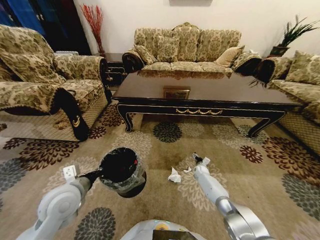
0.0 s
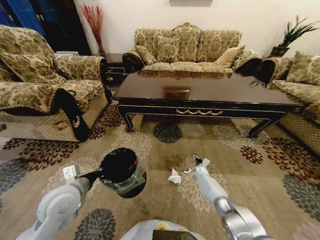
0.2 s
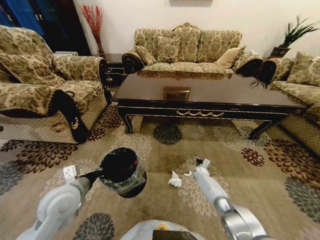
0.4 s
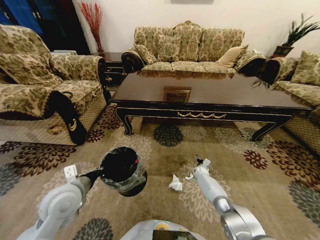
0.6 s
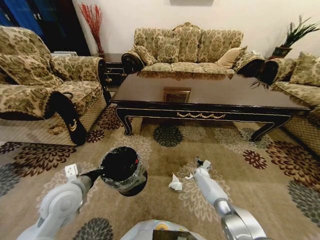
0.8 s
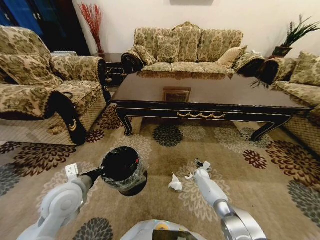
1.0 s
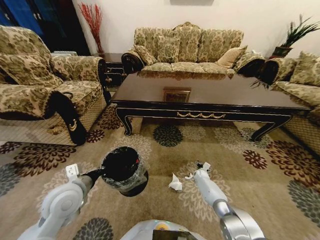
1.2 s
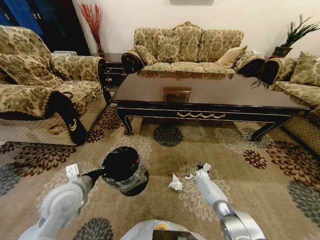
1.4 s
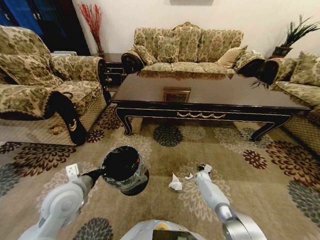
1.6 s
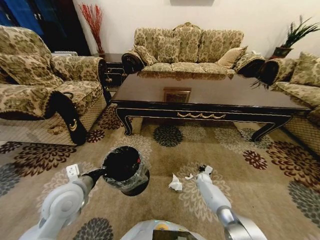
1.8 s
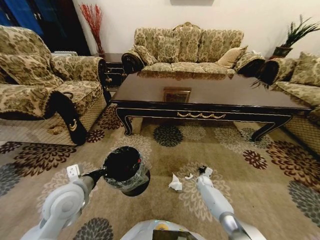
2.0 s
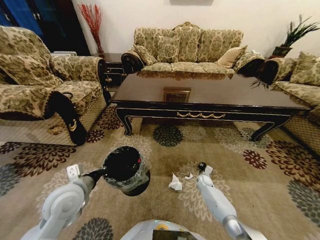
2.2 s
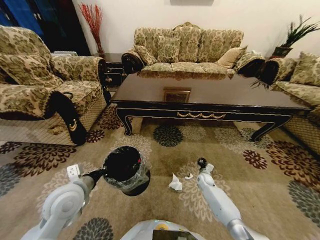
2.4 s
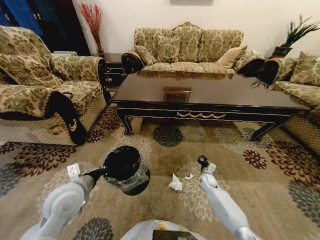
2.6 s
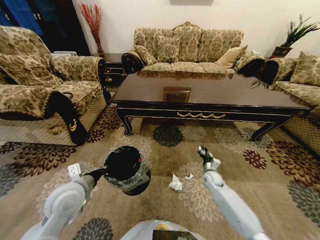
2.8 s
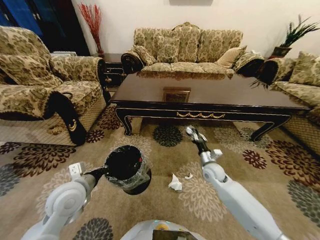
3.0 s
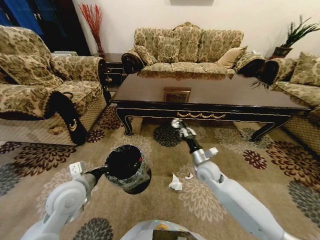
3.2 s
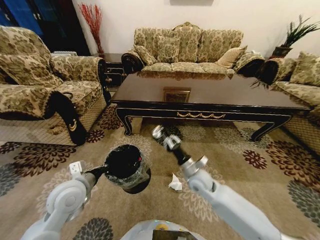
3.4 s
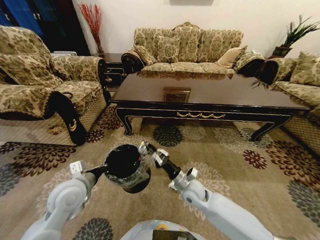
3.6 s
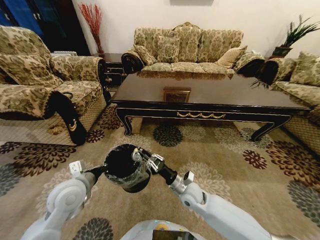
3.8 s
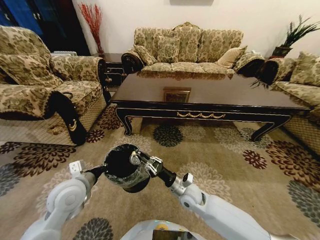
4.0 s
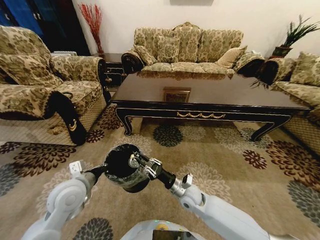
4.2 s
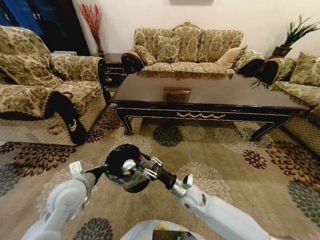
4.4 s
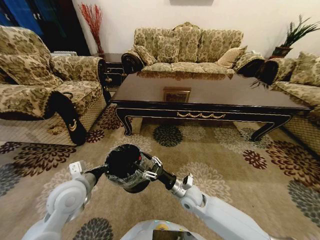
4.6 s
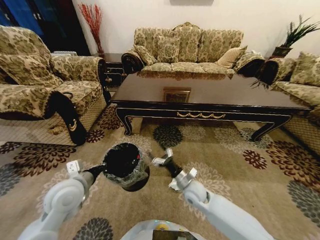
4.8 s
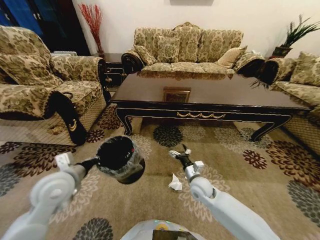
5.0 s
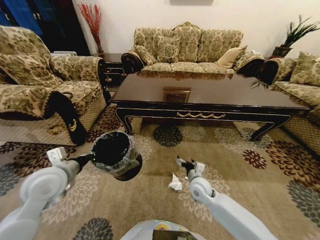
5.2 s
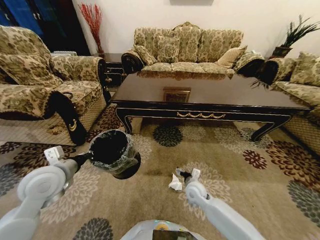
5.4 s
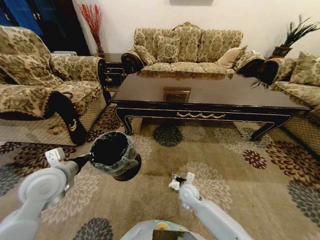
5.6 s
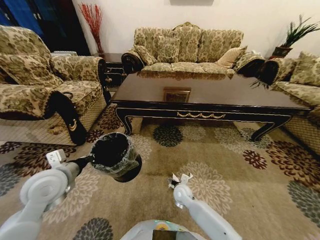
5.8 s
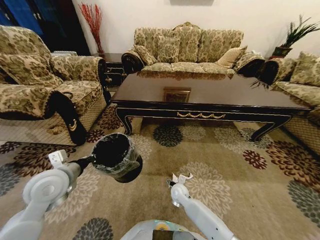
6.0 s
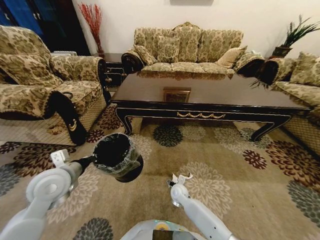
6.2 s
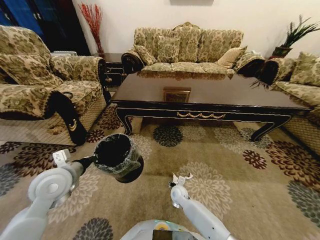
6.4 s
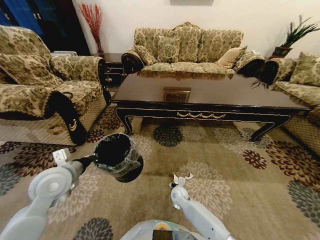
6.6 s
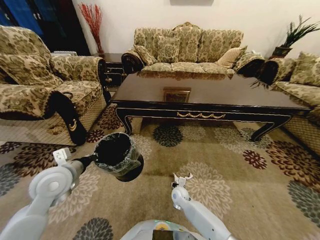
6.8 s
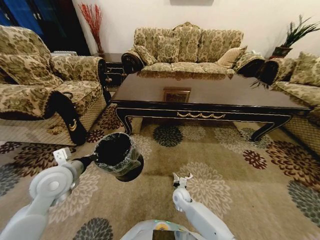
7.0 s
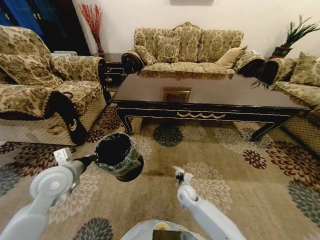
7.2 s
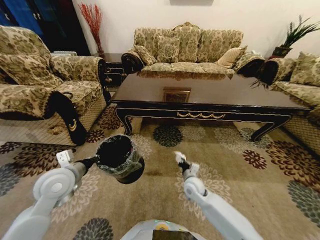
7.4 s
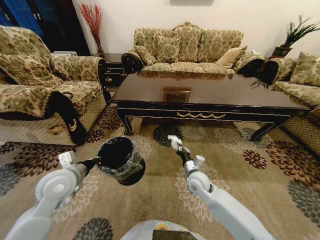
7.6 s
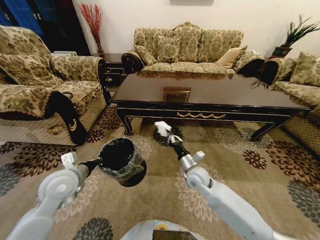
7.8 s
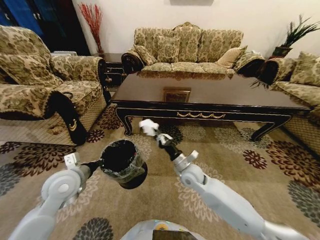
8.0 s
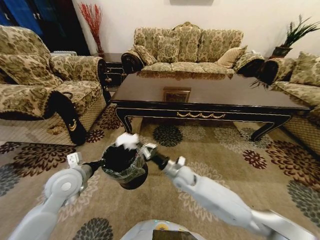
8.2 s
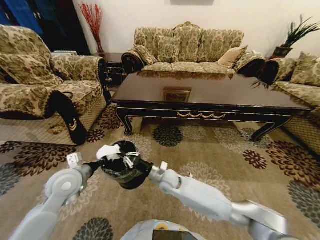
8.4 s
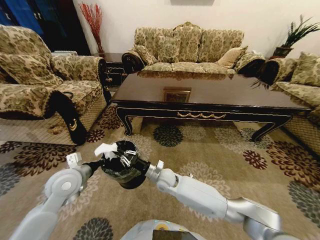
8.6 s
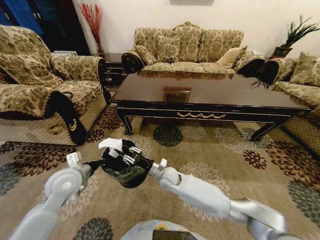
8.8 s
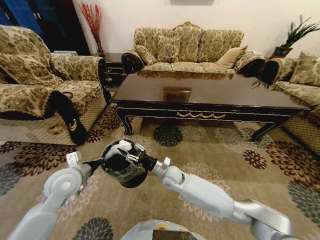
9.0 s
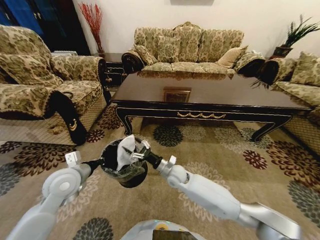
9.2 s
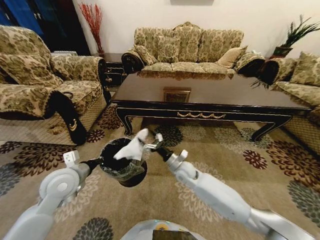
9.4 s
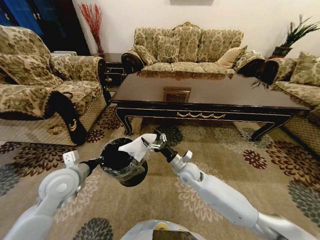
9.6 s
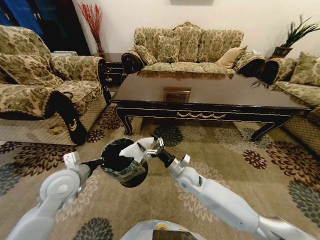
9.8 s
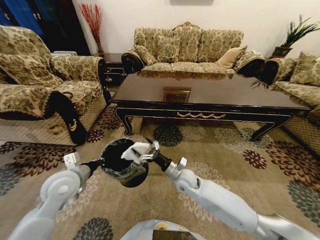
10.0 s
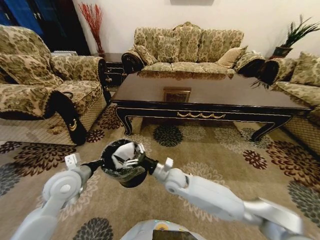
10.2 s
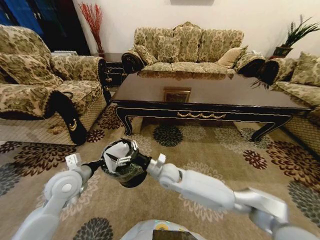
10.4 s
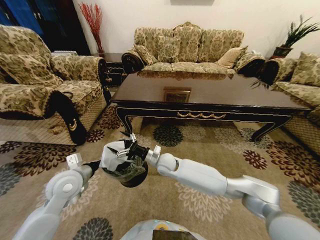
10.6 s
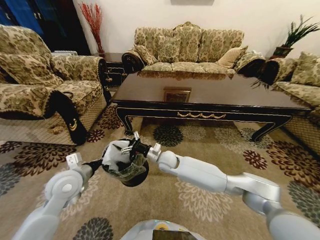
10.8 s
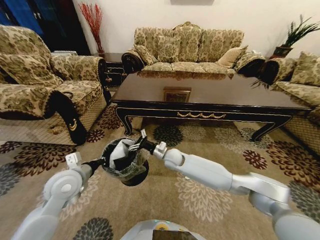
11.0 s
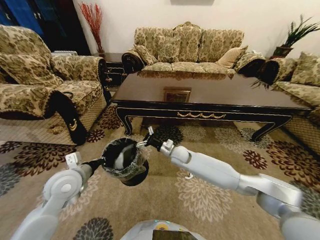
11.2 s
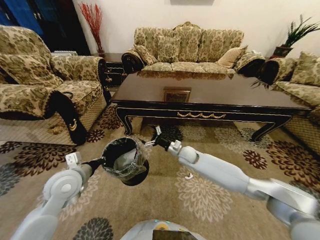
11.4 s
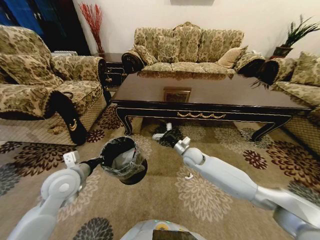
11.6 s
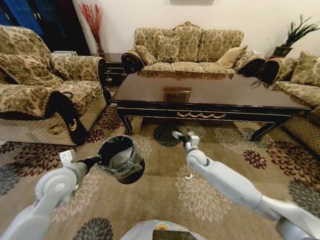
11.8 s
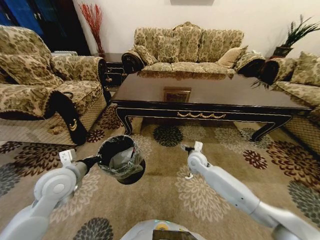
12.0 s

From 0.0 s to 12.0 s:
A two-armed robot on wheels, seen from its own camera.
Task of the whole recording: Move to the front of the table and pick up the trash from the floor, then place it into the trash bin.
From 0.0 s to 1.6 s: The right gripper closes.
From 1.6 s to 3.0 s: The right gripper travels upward by some 20 cm.
From 3.0 s to 4.4 s: The right gripper is displaced to the left and backward by about 15 cm.
From 4.4 s to 6.0 s: The right gripper travels downward by about 10 cm, and opens up, while the left gripper shifts by approximately 5 cm.
From 6.0 s to 7.6 s: The right gripper heads upward and to the right, covering approximately 15 cm, and closes up.
From 7.6 s to 9.0 s: The right gripper moves to the left, some 10 cm, and opens its fingers.
From 9.0 s to 10.4 s: The right gripper moves upward, approximately 5 cm, moves some 10 cm to the right and comes back, and opens its fingers.
From 10.4 s to 12.0 s: The right gripper shifts approximately 20 cm to the right and forward.

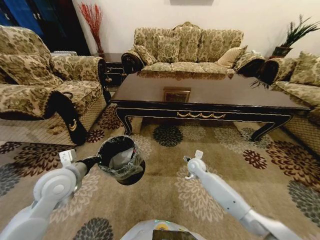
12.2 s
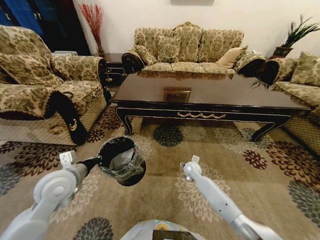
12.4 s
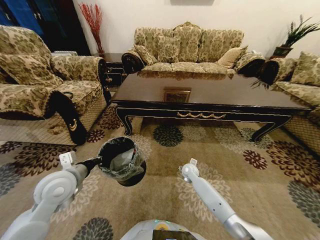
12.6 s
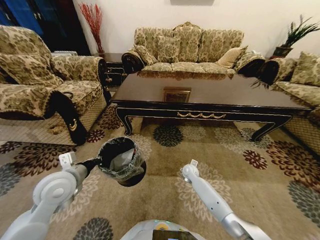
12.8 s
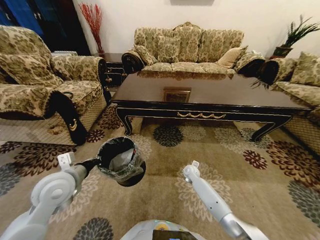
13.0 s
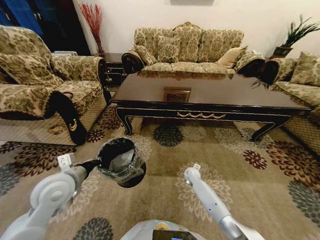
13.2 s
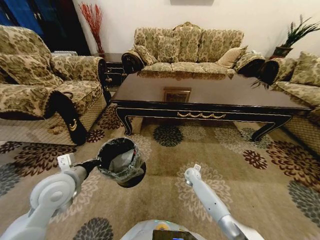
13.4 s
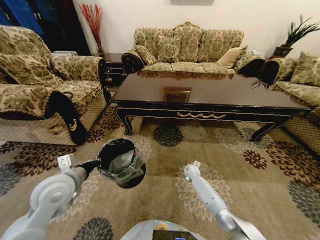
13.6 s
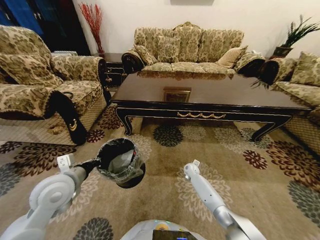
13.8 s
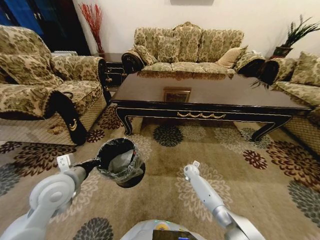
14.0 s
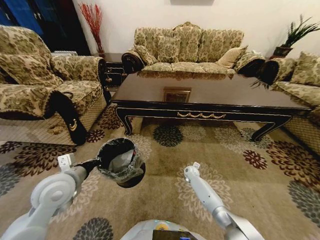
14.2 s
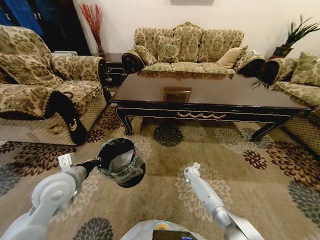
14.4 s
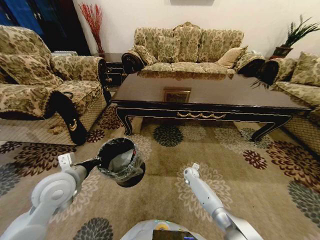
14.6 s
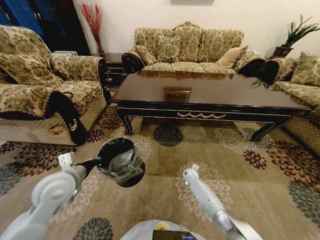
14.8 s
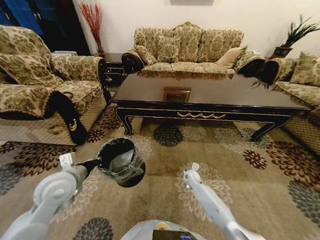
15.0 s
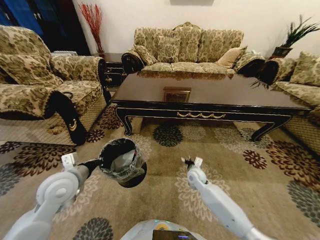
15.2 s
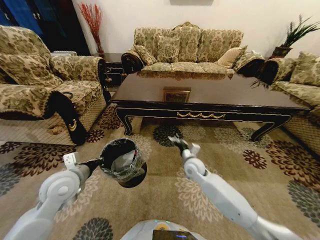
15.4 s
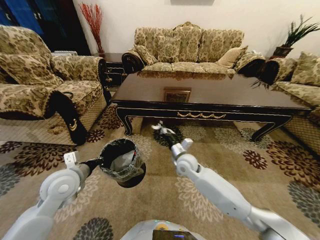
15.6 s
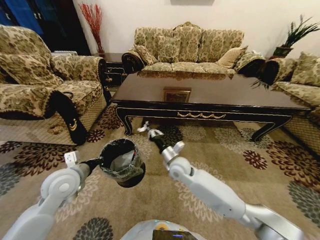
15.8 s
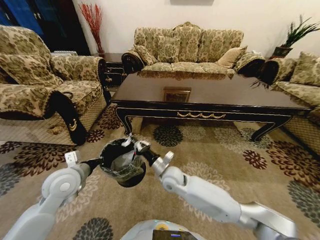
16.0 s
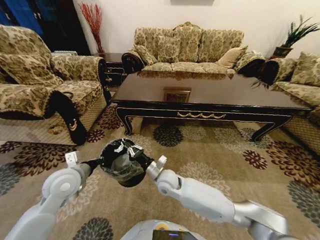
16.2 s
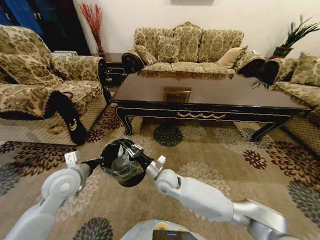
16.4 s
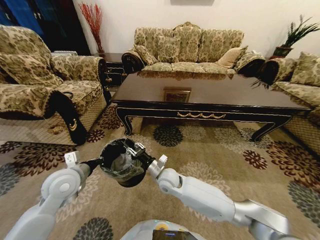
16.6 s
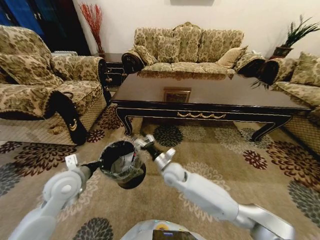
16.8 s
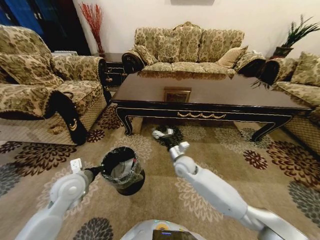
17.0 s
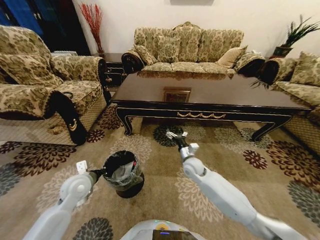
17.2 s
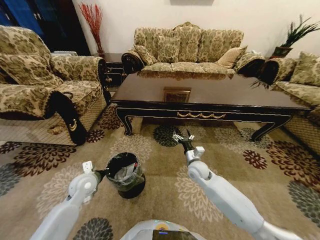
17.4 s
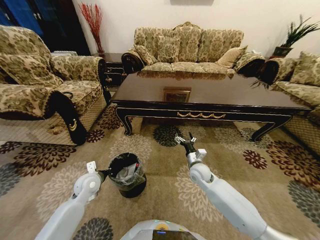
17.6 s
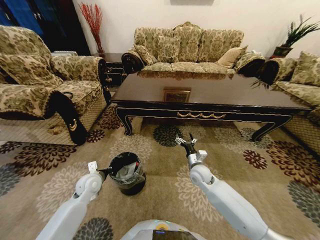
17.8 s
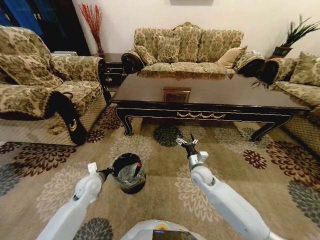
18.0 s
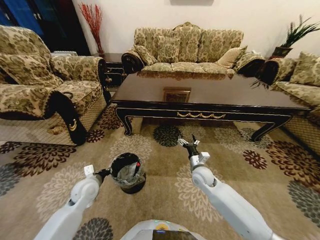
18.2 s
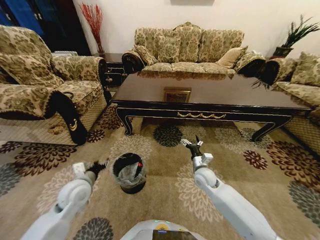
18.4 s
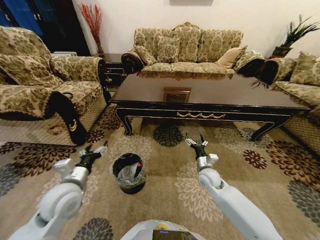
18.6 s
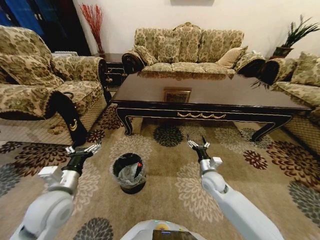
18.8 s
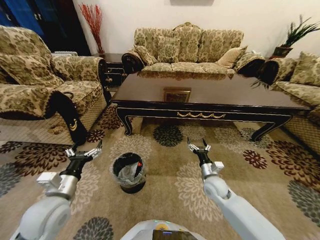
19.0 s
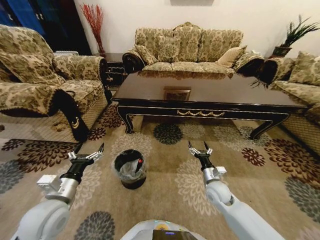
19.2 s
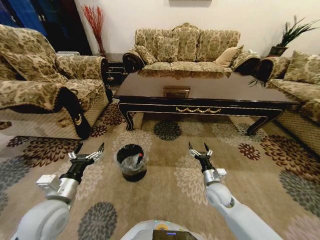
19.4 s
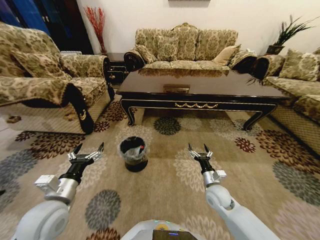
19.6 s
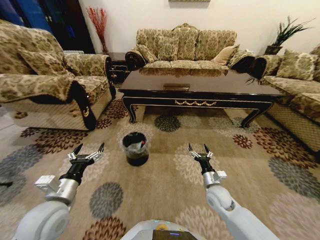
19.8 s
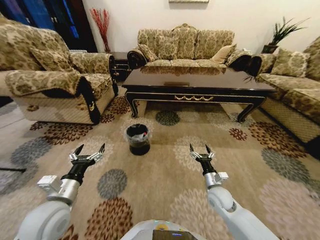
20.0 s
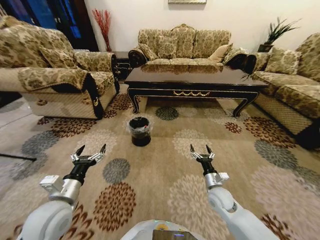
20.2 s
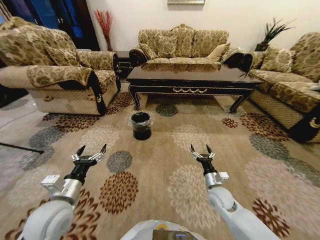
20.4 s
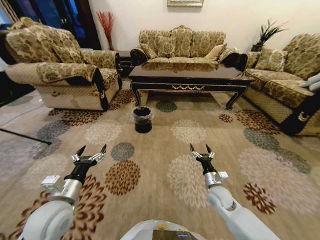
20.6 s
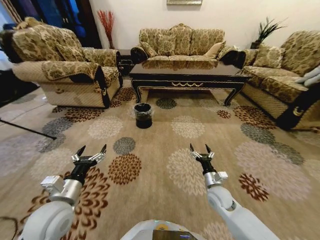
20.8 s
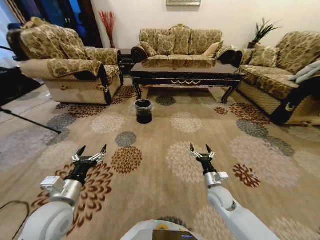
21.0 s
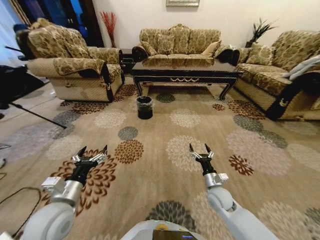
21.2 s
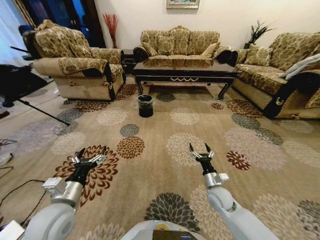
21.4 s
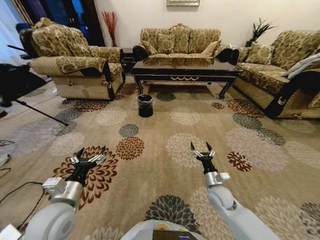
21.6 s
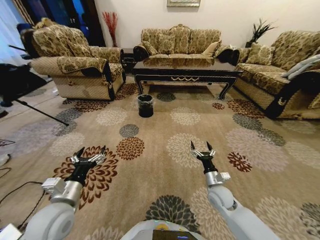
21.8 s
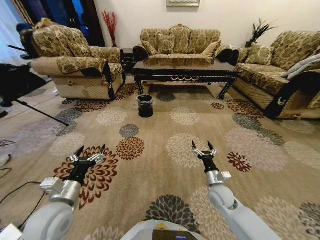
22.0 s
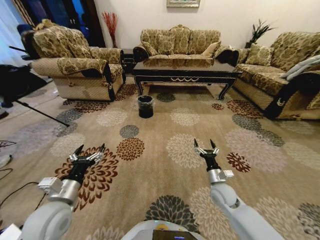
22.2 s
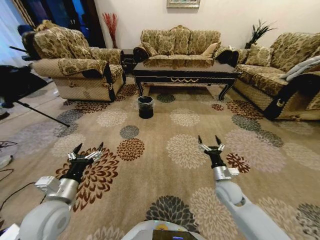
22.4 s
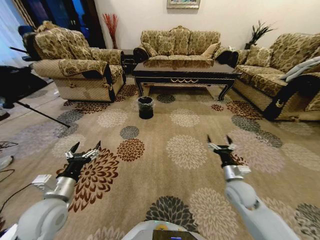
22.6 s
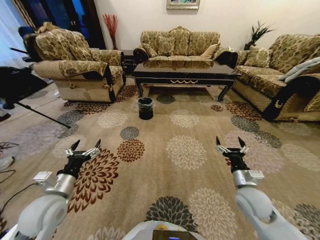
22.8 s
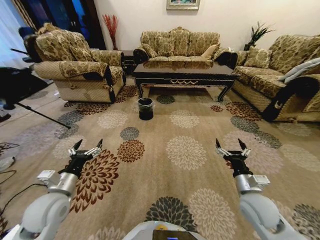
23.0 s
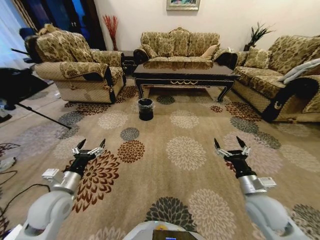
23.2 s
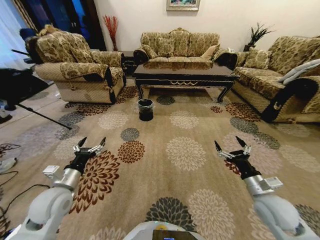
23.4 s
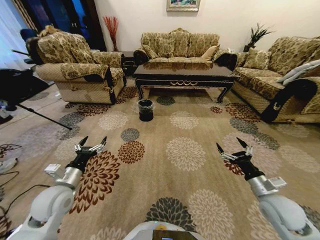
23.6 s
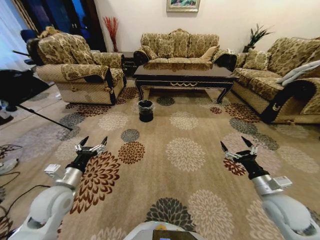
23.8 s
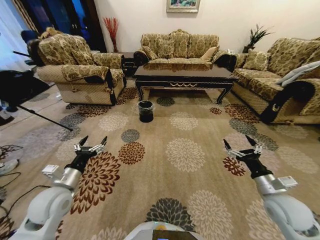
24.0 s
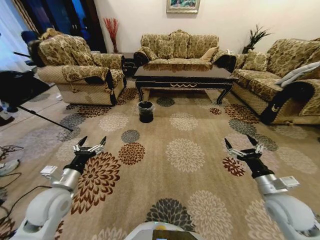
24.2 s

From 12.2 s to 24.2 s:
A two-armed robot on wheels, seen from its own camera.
Task of the whole recording: Move to the front of the table and pick up the trash from the floor, then place it into the trash bin.
From 12.2 s to 13.8 s: The right gripper is displaced downward by approximately 10 cm.
From 13.8 s to 15.2 s: The right gripper travels backward and upward by approximately 10 cm, and closes.
From 15.2 s to 16.6 s: The right gripper moves to the left and upward, about 20 cm, and opens up.
From 16.6 s to 18.2 s: The right gripper shifts some 15 cm to the right, and opens, while the left gripper moves downward, approximately 15 cm, and opens its fingers.
From 18.2 s to 19.8 s: The left gripper travels upward and backward by approximately 15 cm, and opens up, while the right gripper moves backward and to the right, roughly 10 cm.
From 21.2 s to 22.6 s: The right gripper heads upward and to the right, covering about 10 cm.
From 22.6 s to 24.2 s: The right gripper shifts some 15 cm to the right, backward and upward.
